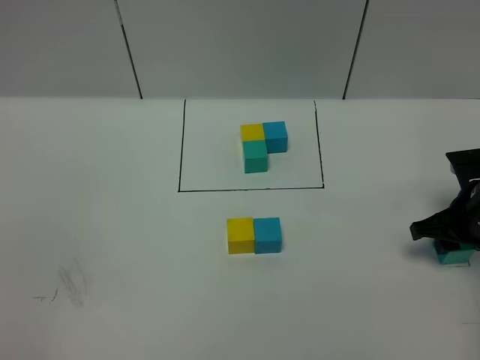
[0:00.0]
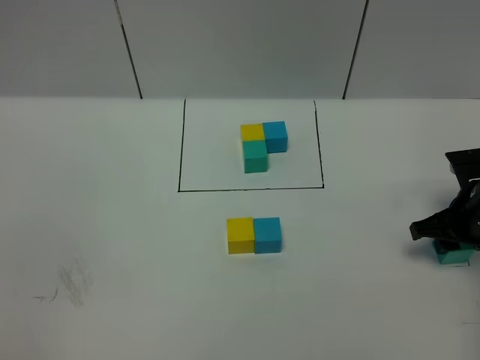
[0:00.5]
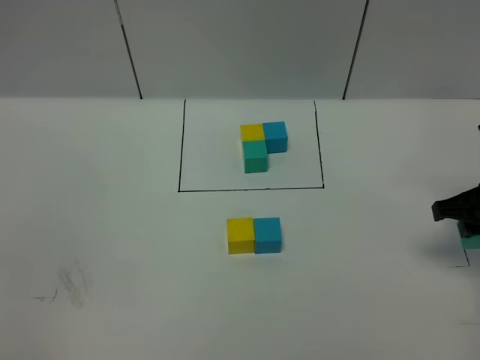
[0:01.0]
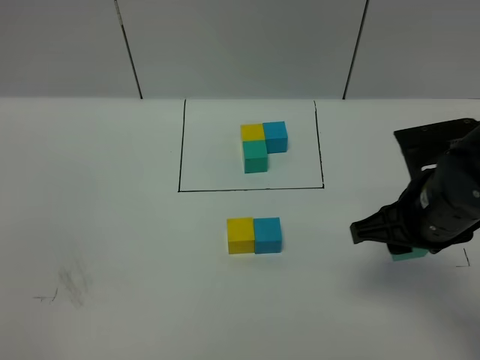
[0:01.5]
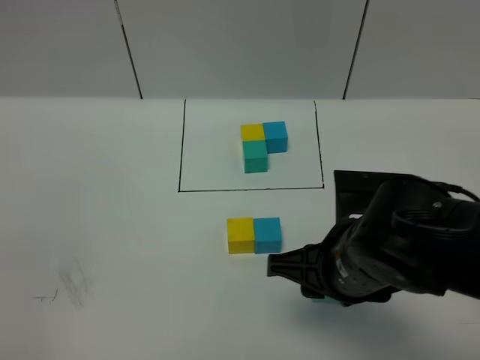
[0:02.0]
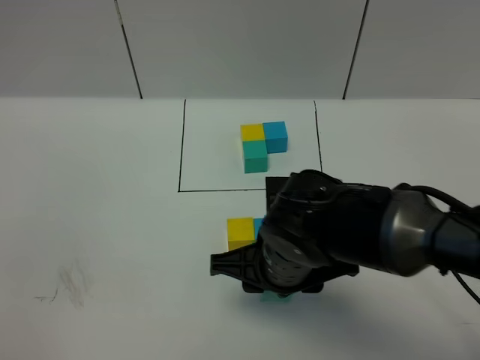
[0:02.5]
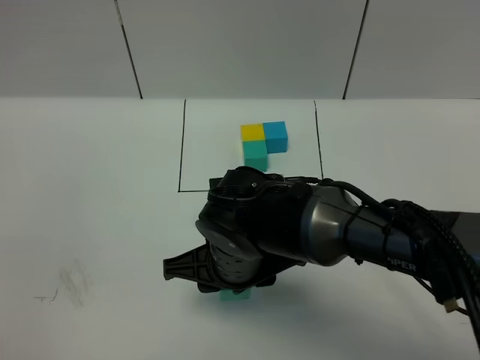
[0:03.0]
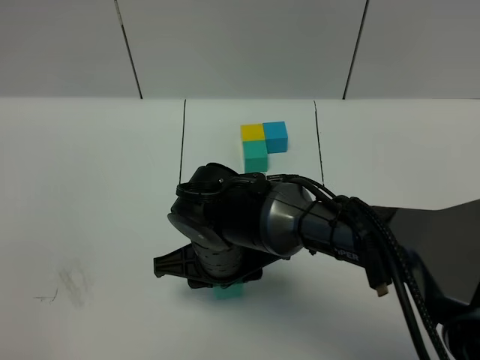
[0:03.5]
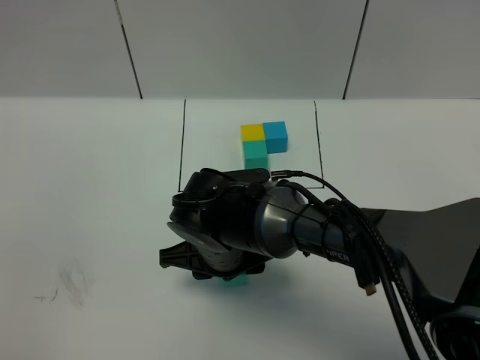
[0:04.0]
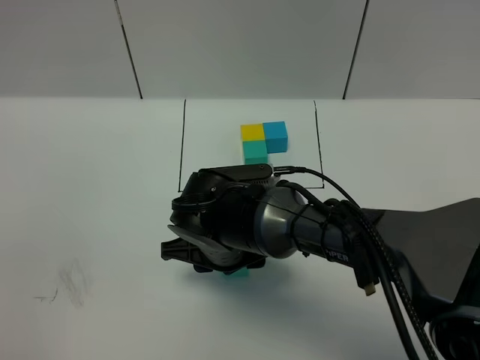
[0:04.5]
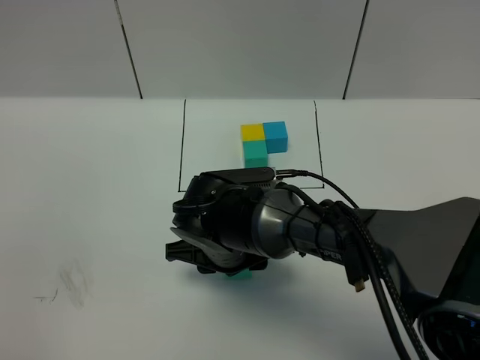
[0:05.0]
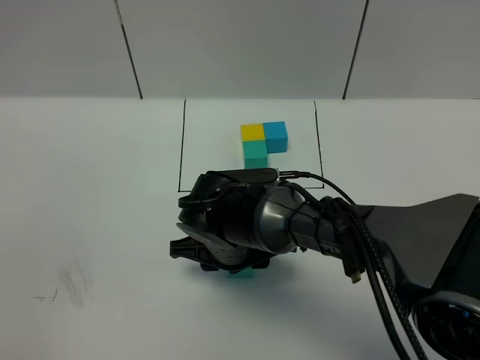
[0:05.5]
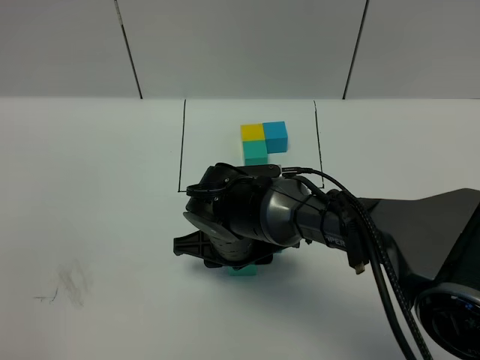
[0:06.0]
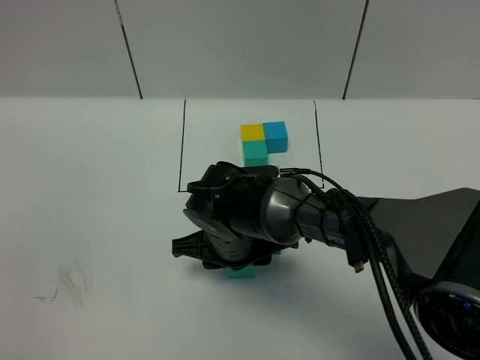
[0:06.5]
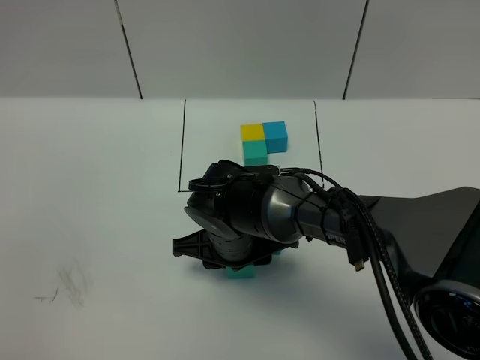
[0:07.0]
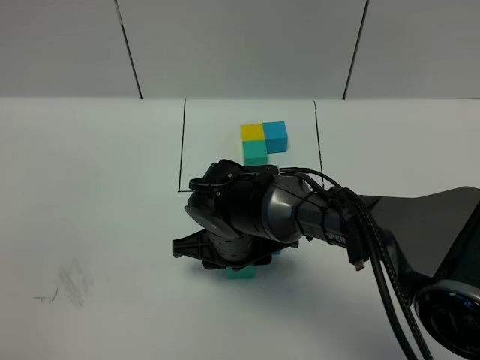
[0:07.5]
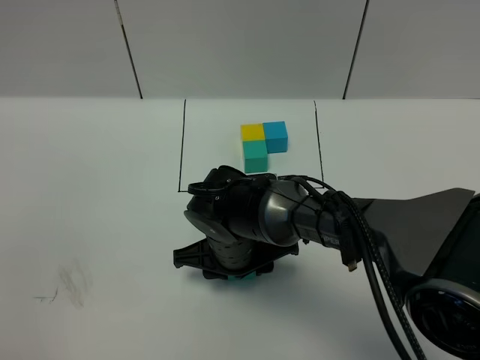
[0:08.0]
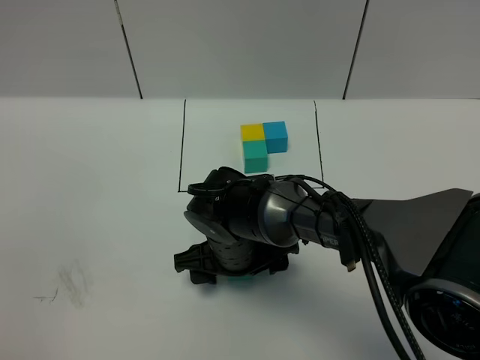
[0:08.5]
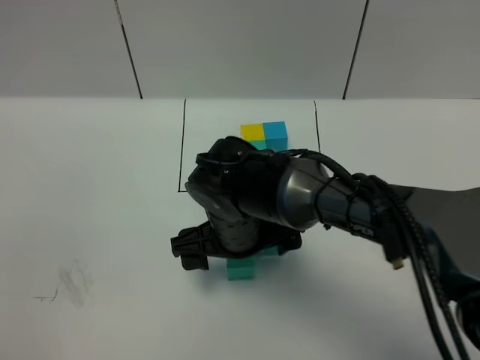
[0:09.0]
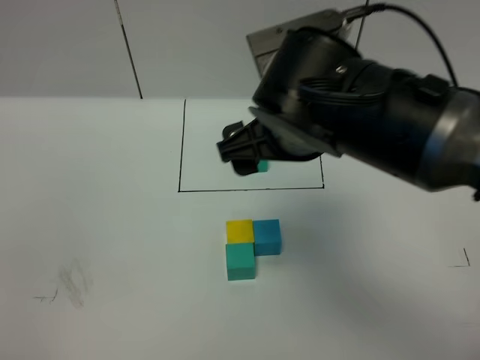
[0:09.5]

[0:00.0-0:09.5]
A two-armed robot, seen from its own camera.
Task of the whole recording: According to the building block template in front, assemble the scattered blocks together.
Step, 0:00.0 to 0:08.5: Put the green cube in the front of the yellow cube.
0:00.0 to 0:02.0: The right gripper travels to the left, backward and upward by about 25 cm.
0:02.0 to 0:04.0: The right gripper is displaced to the left, downward and forward by some 15 cm.
0:04.0 to 0:05.5: The grippers move only a little.
0:05.5 to 0:07.5: Neither gripper changes place.
0:07.5 to 0:09.5: The right gripper goes roughly 20 cm upward, and opens its fingers.

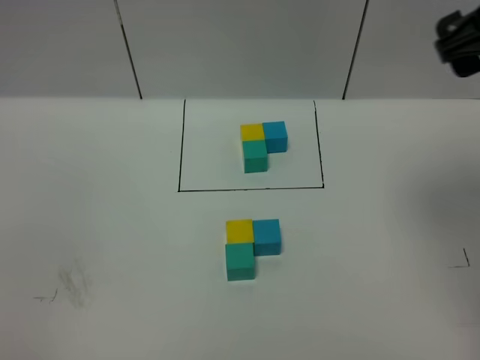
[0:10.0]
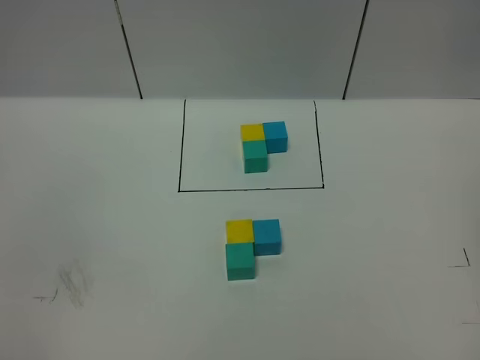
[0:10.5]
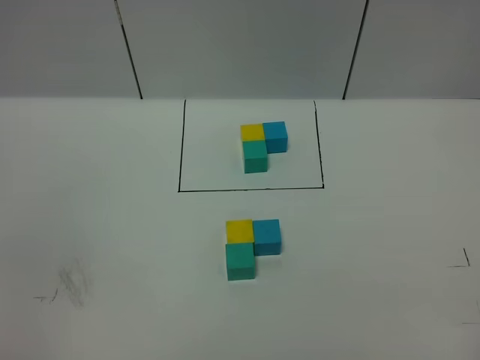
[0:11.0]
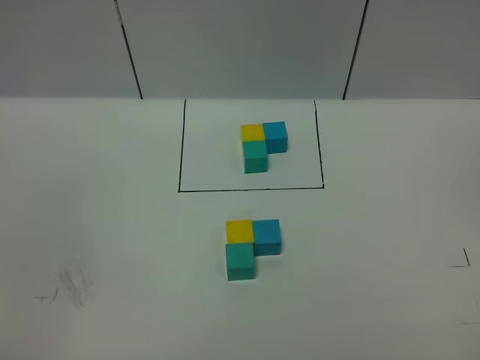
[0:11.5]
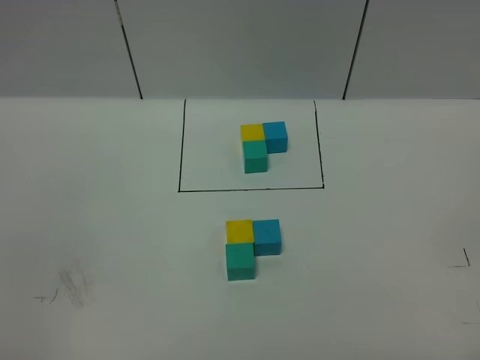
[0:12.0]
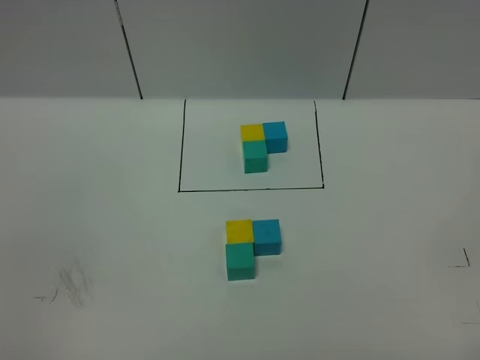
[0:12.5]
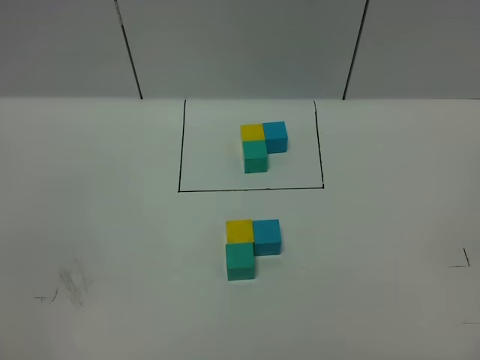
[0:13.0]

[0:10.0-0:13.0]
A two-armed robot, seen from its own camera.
Task of the whole recording: According to the building block template in front, assemble the scattered blocks together.
0:10.0 to 0:11.5: The right gripper goes approximately 30 cm backward.

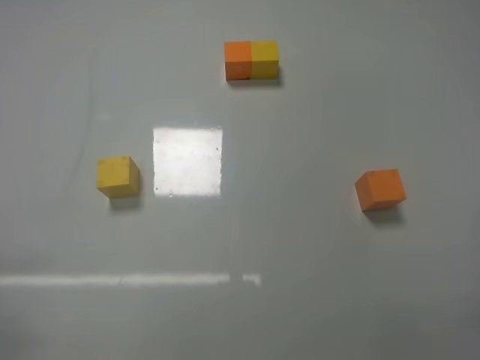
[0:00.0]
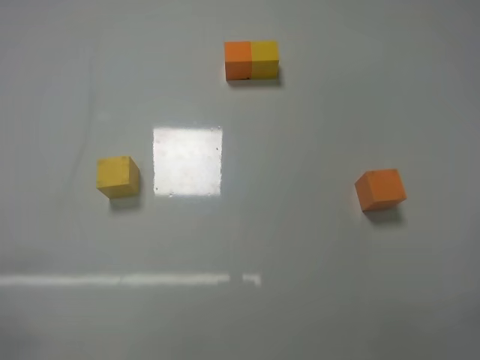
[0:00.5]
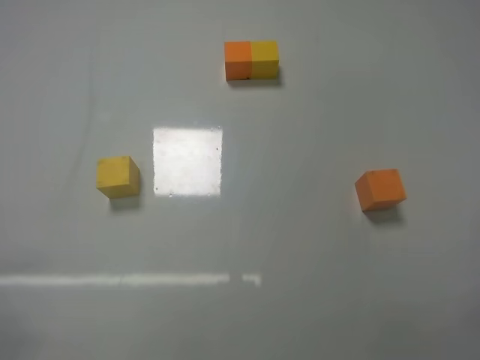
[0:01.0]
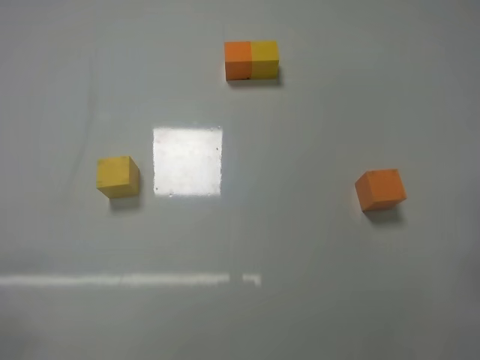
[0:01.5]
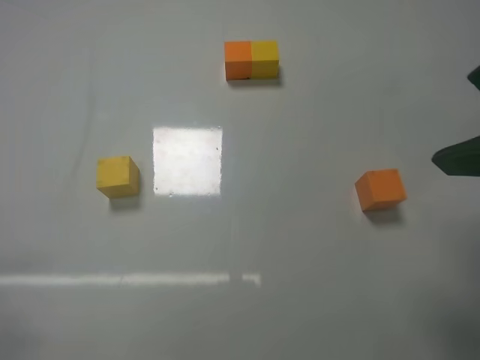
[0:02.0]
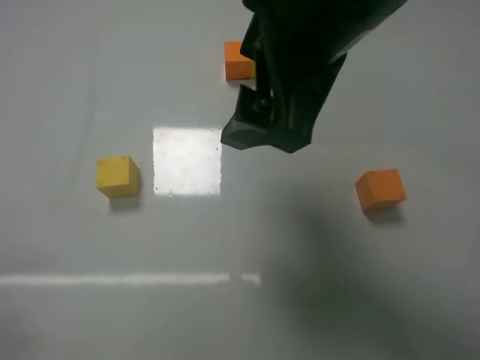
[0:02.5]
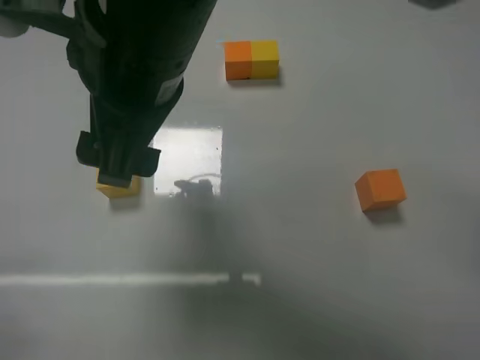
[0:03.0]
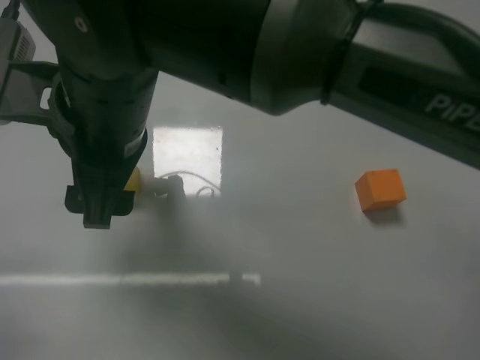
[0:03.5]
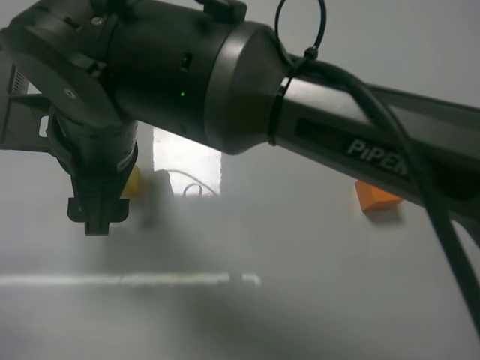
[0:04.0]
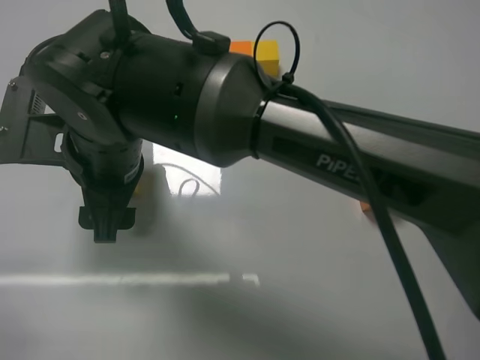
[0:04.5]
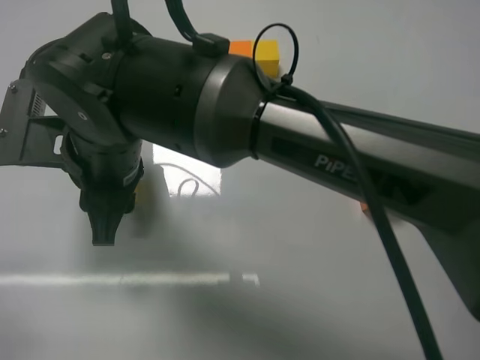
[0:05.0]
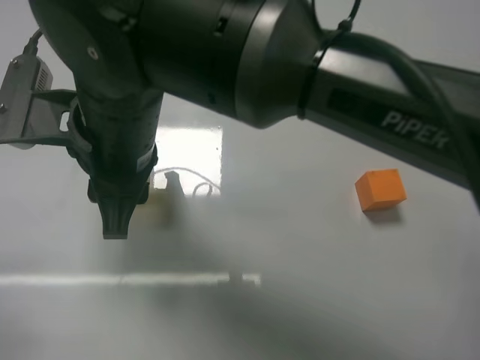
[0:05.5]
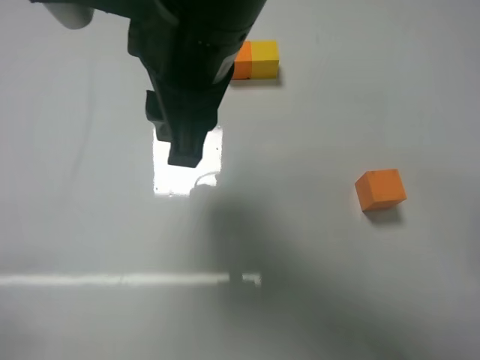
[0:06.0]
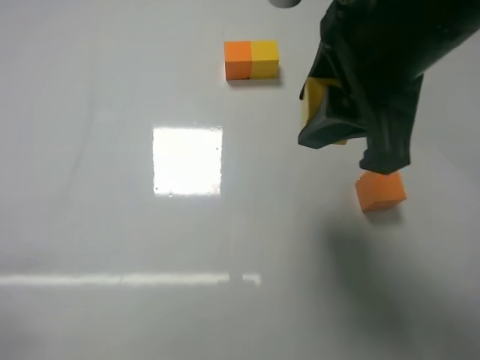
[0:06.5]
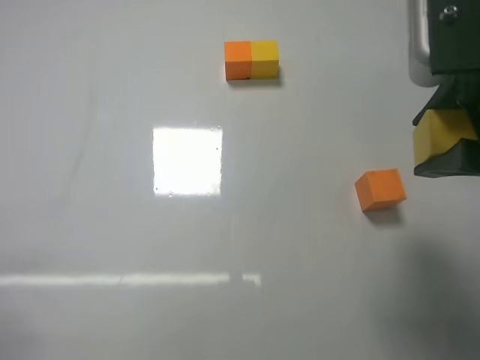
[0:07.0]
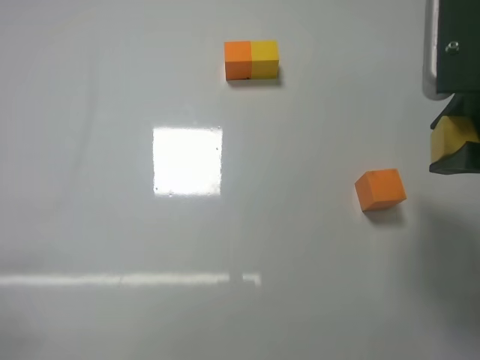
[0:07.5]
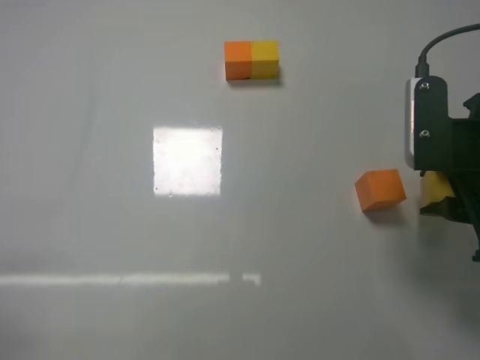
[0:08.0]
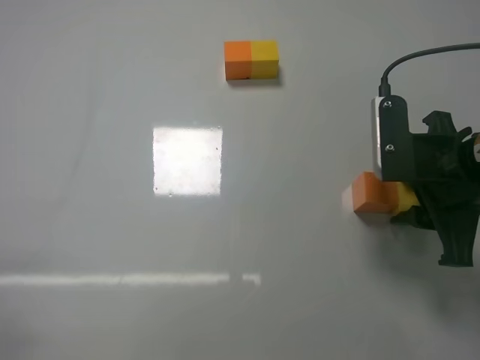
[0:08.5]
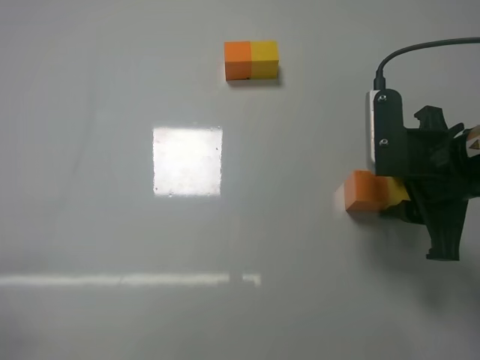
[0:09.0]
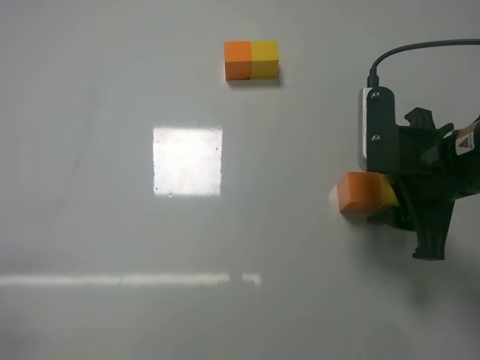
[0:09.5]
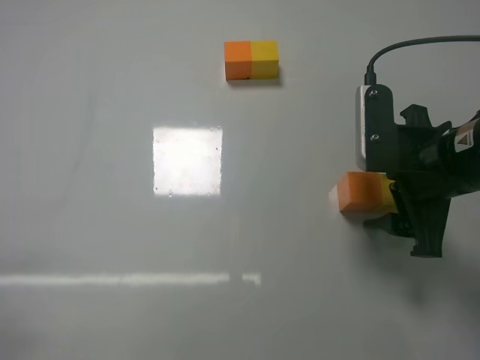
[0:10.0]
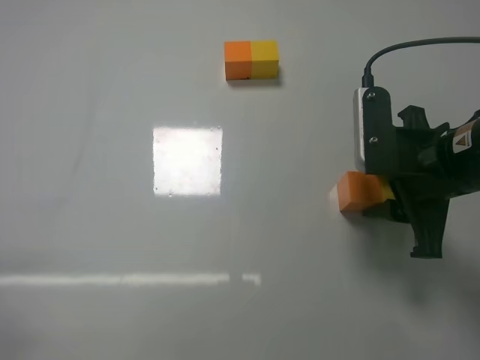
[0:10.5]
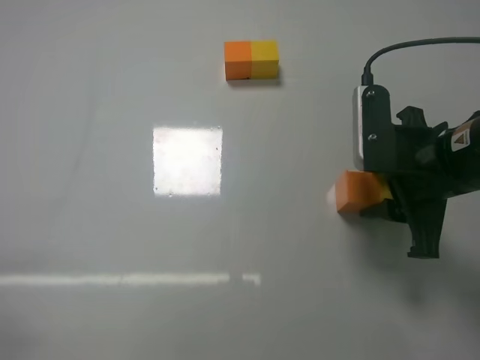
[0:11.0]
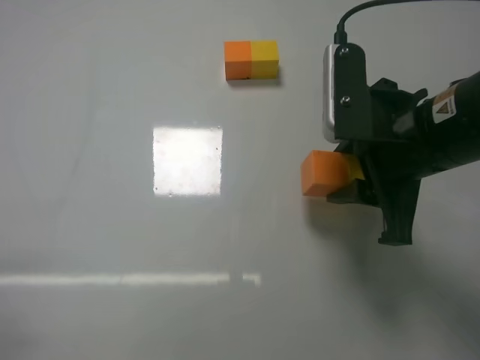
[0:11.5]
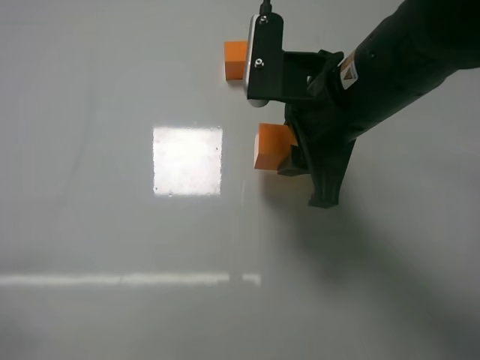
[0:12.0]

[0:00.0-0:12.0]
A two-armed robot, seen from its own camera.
Task of the whole recording: According to the building block template in front, assemble the scattered blocks together.
Step, 0:00.0 to 0:05.0: Grasp the yellow block with right gripper.
Step, 0:05.5 to 0:09.5: Put the yellow cube on the right of the orange cube with the right gripper.
0:00.0 to 0:02.0: The right gripper goes some 25 cm upward, forward and to the left.
0:02.0 to 0:04.0: The right gripper shifts approximately 35 cm to the left.
0:04.0 to 0:06.0: The right gripper moves to the right and upward, roughly 15 cm, and closes.
0:06.0 to 0:08.0: The right gripper shifts some 25 cm to the right.
0:08.0 to 0:10.0: The right gripper opens up.
0:10.0 to 0:12.0: The right gripper shifts approximately 10 cm to the left, and closes up.

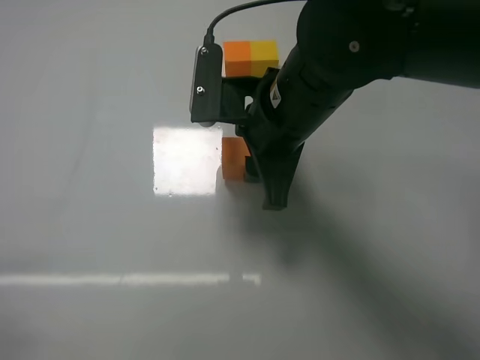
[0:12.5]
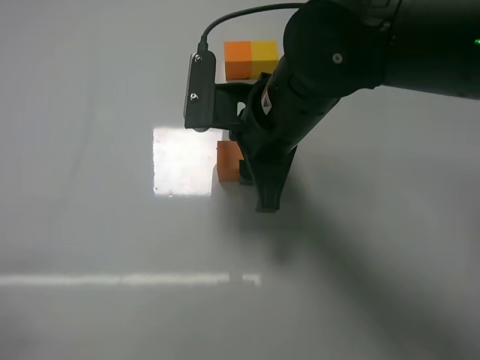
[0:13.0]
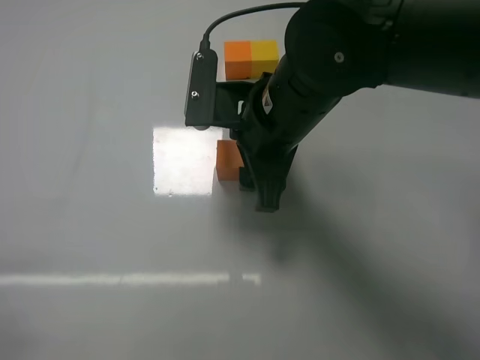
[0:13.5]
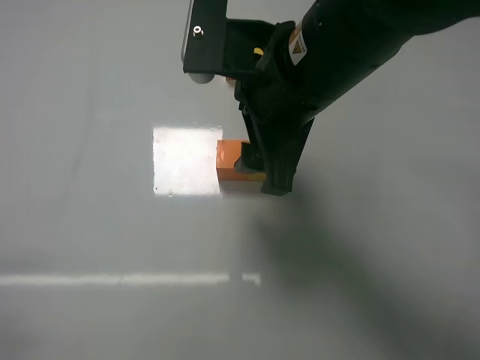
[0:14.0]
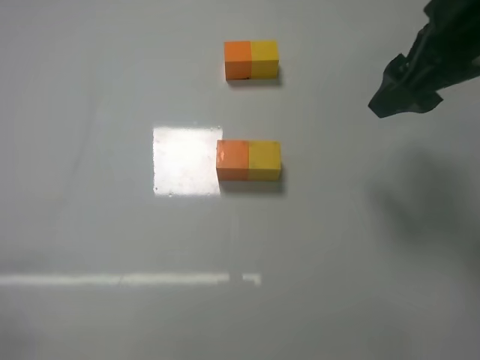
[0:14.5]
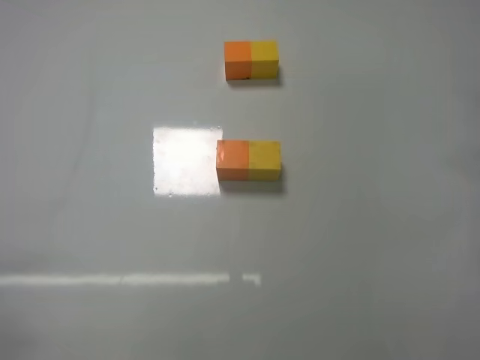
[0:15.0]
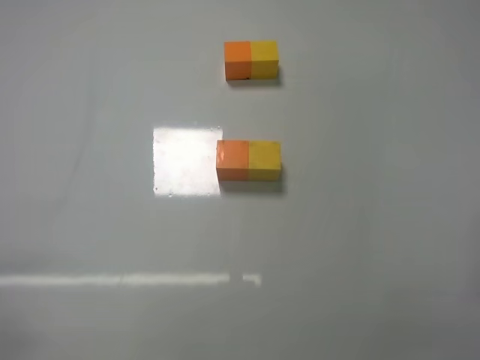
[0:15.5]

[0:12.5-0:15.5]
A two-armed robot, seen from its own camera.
Task of the whole recording: According to the building block template in front, assemble the scattered blocks together.
0:12.5 to 0:14.0: The right gripper moves some 5 cm, and opens up.
0:14.0 to 0:15.5: The right gripper heads to the right, backward and downward, covering some 35 cm.
